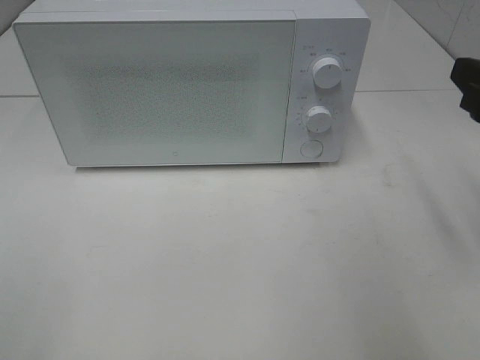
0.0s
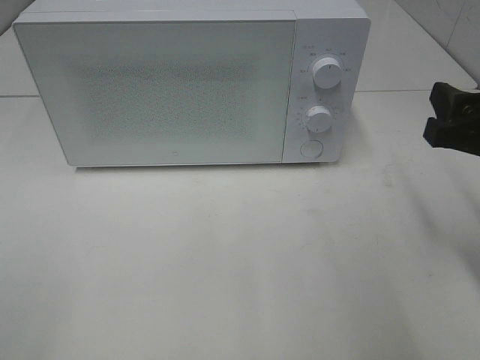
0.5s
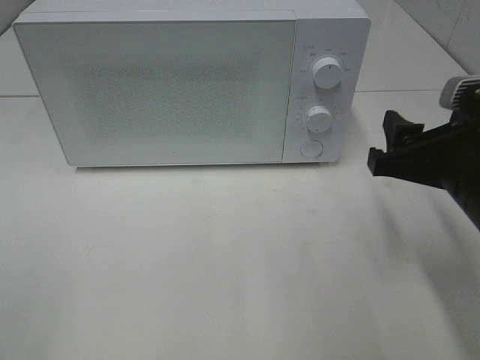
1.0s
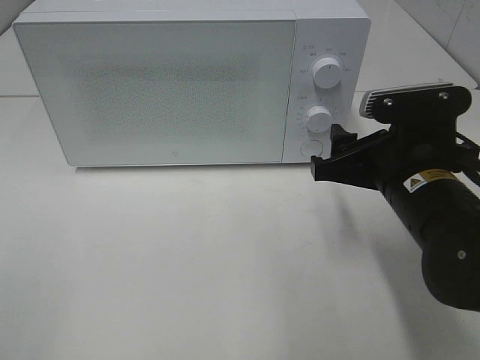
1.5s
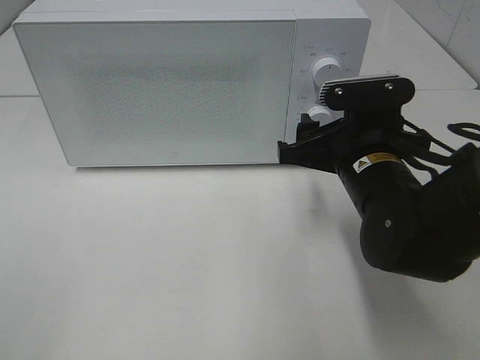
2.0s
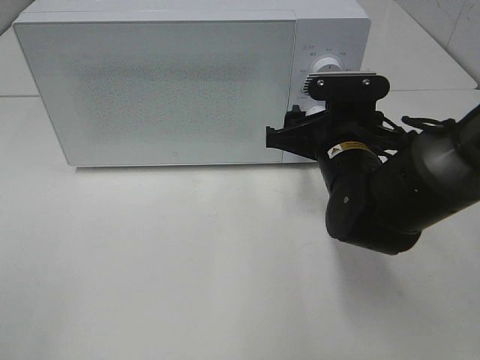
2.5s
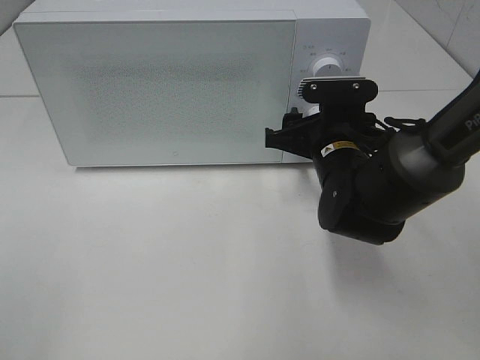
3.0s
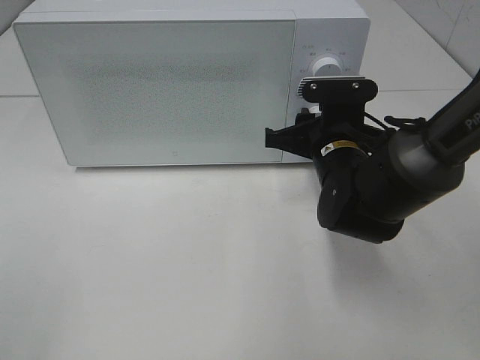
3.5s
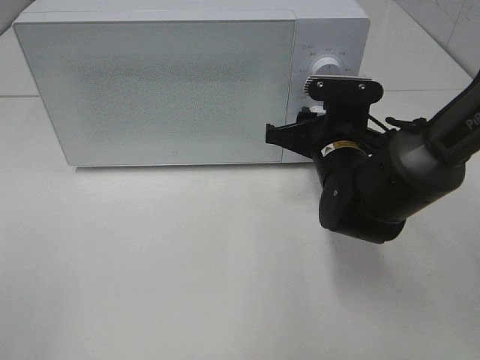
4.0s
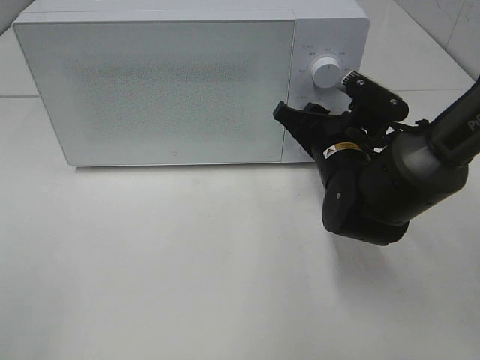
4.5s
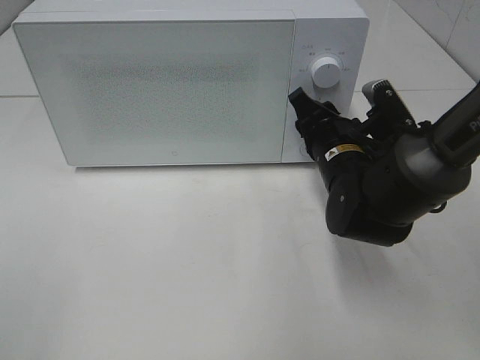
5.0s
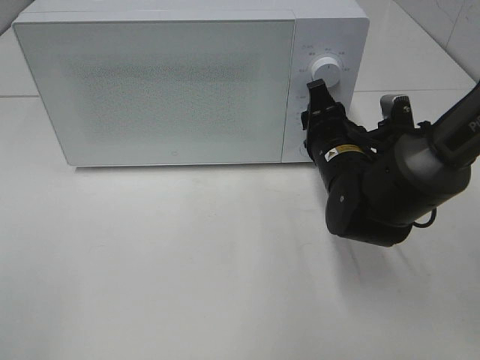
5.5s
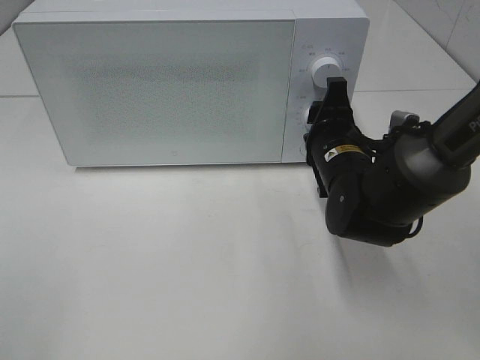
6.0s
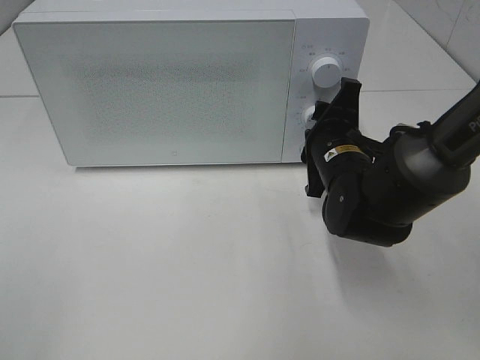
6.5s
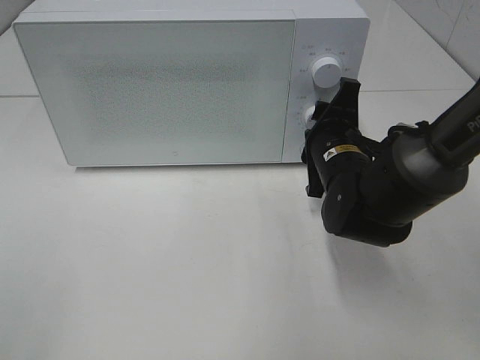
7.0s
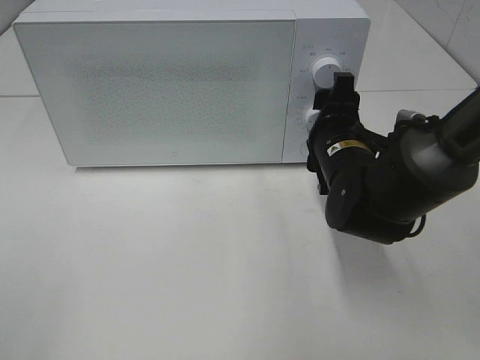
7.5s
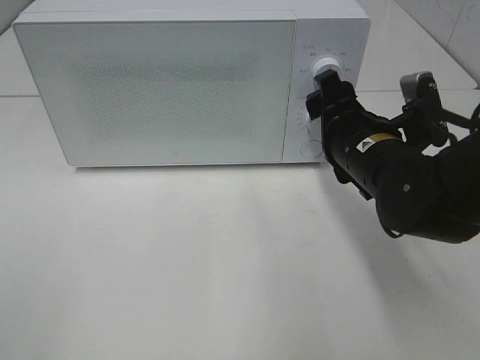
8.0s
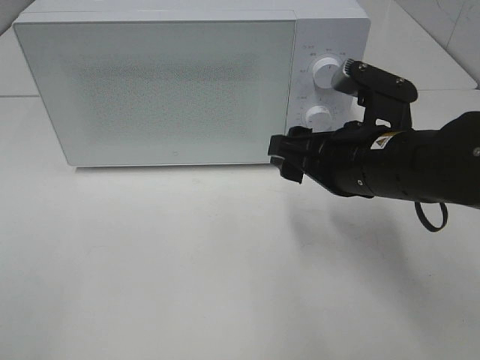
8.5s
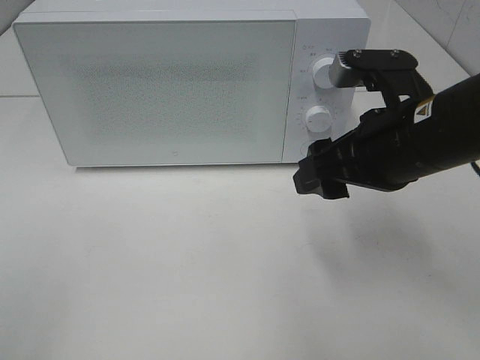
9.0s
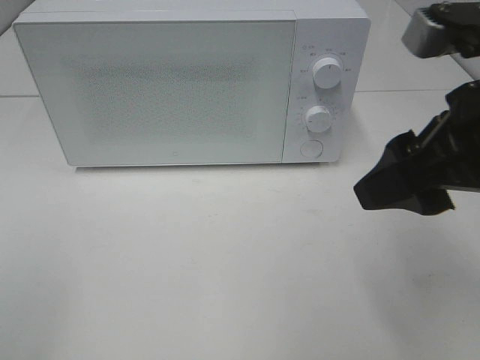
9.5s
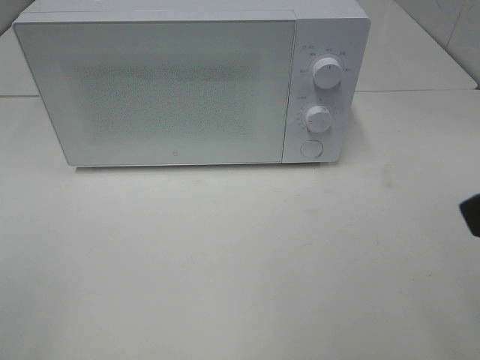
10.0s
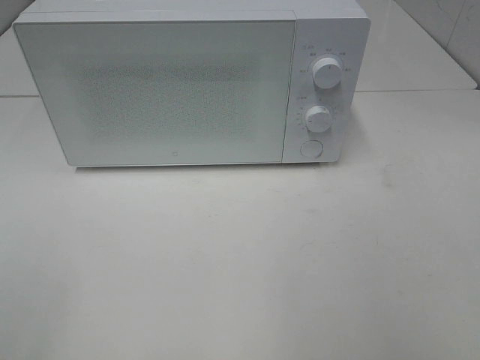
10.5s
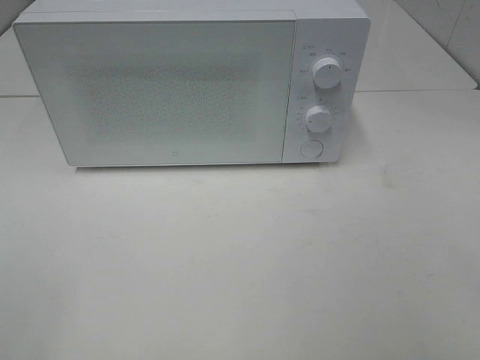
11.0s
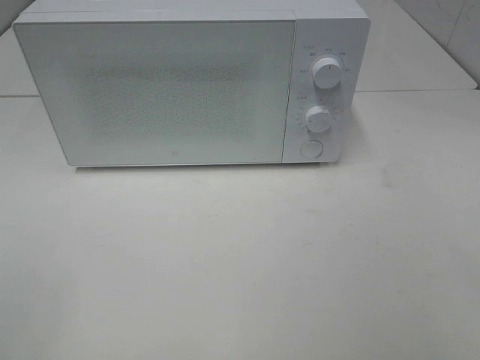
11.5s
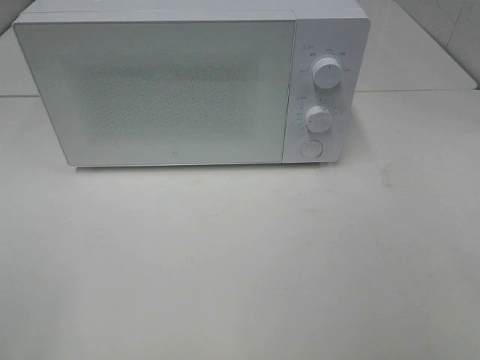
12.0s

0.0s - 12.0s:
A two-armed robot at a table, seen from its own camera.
Task of the whole recording: Heat the burger.
Step, 0.0s - 7.5s: Right hand: twist timer button.
0.0s - 2.0s: The right gripper shifts roughly 20 cm to the left, downward and forward.
2.0s - 4.0s: The right gripper moves forward, about 5 cm.
6.0s - 8.0s: The right gripper shifts by about 5 cm, and opens up.
8.0s - 10.0s: The right gripper shifts roughly 25 cm backward, upward and to the right.

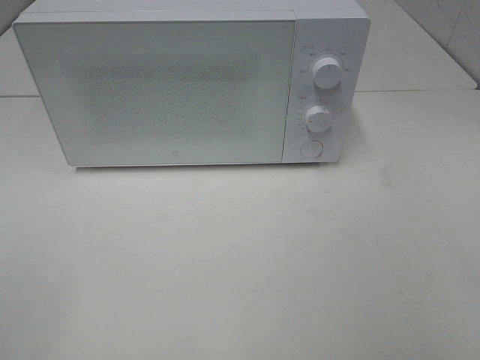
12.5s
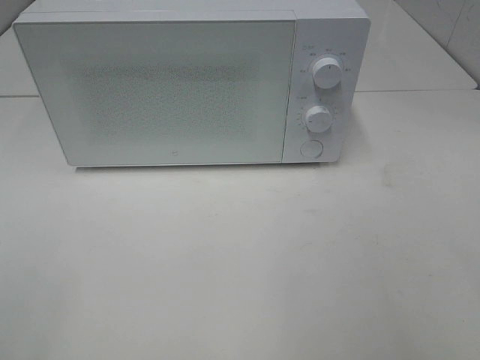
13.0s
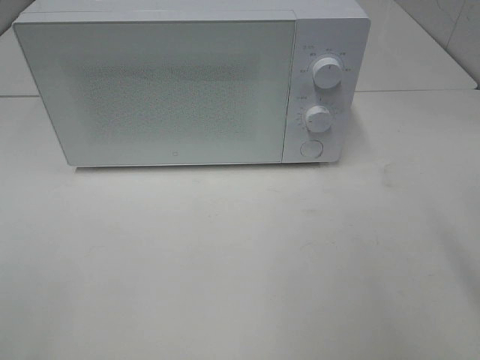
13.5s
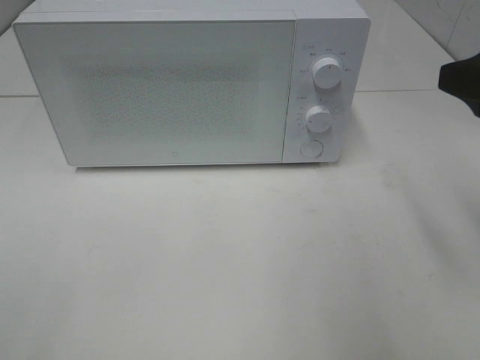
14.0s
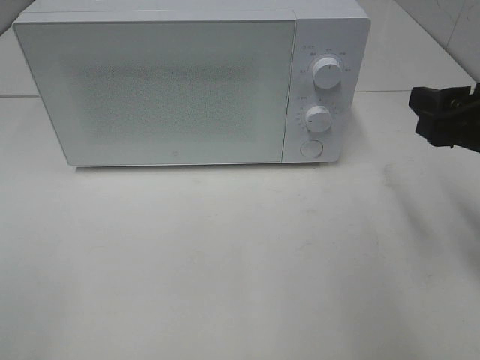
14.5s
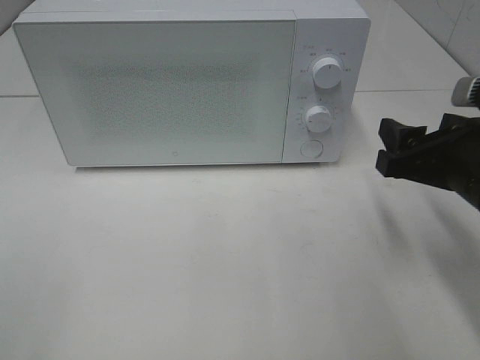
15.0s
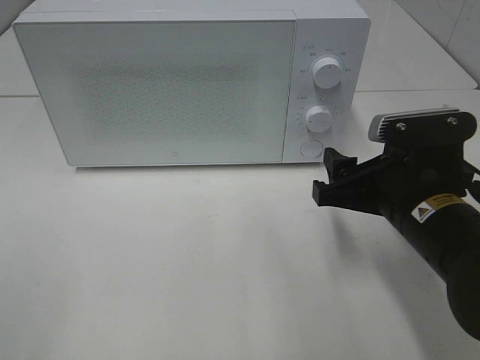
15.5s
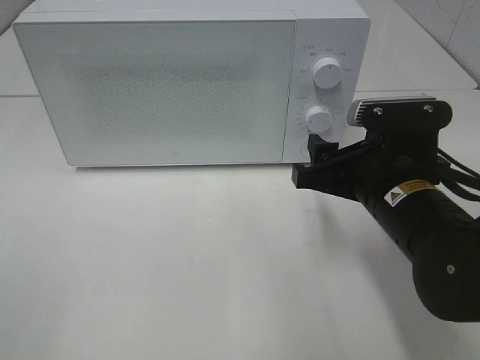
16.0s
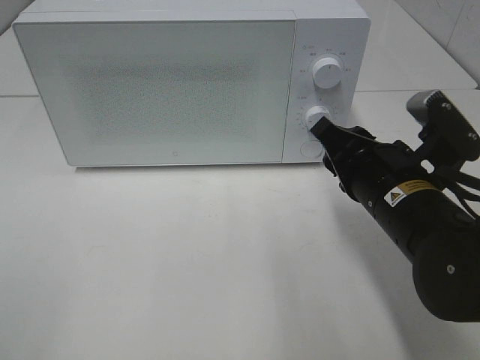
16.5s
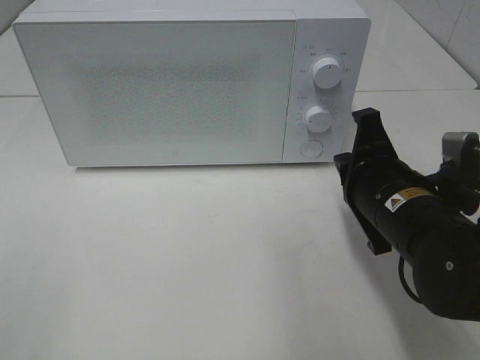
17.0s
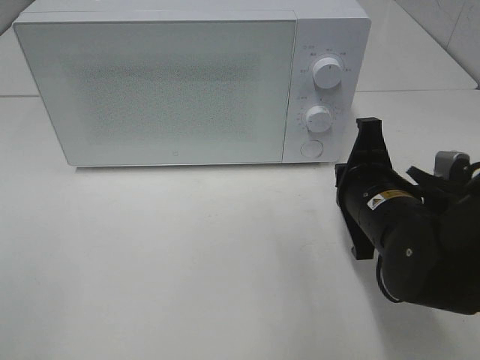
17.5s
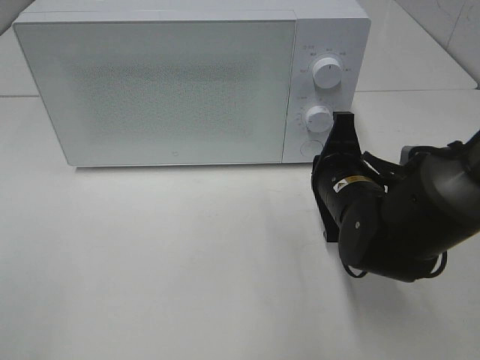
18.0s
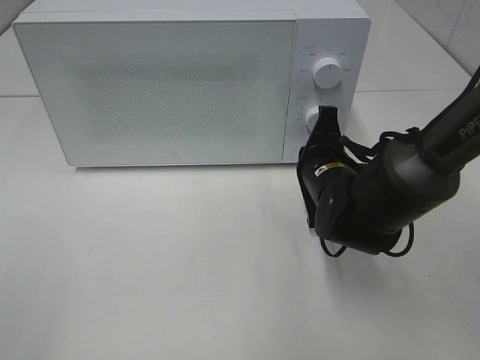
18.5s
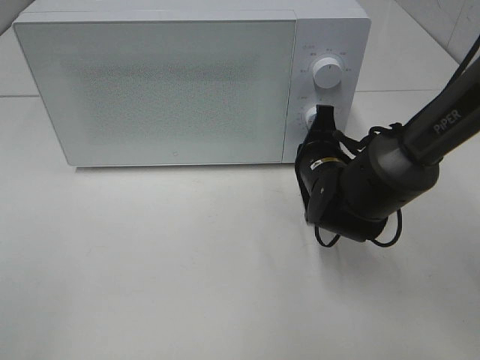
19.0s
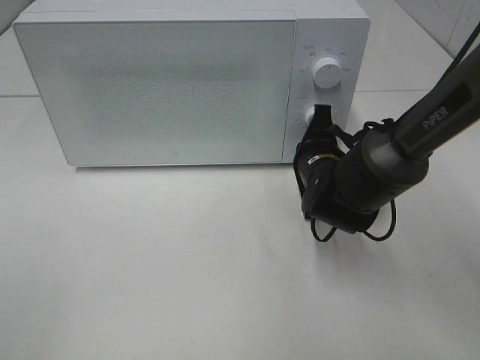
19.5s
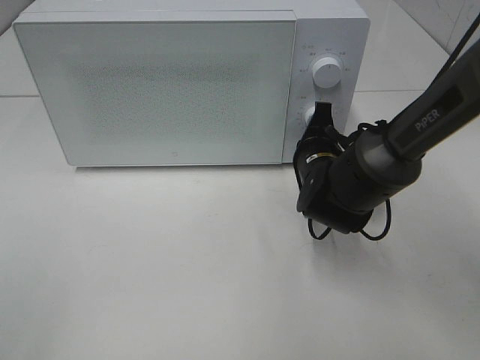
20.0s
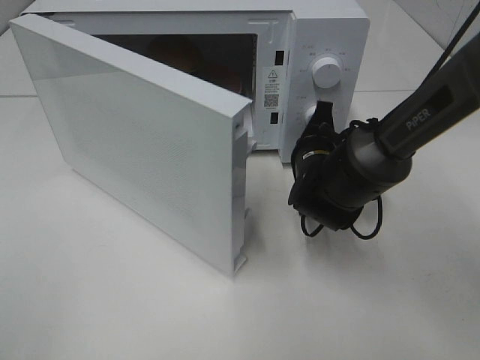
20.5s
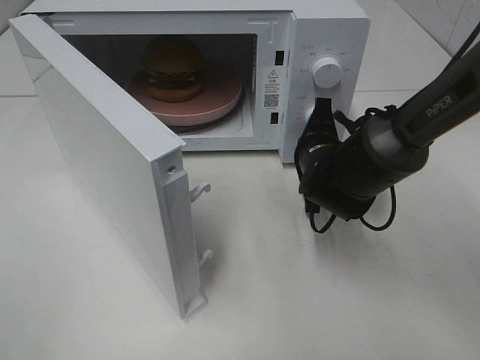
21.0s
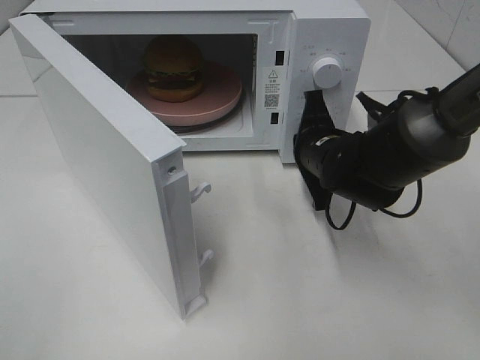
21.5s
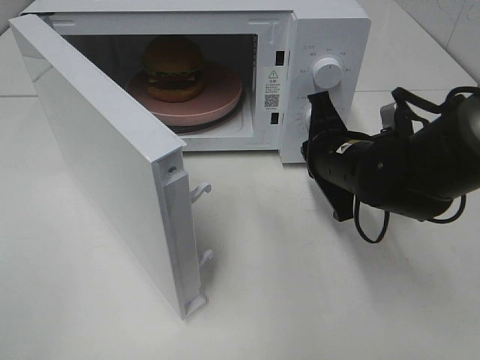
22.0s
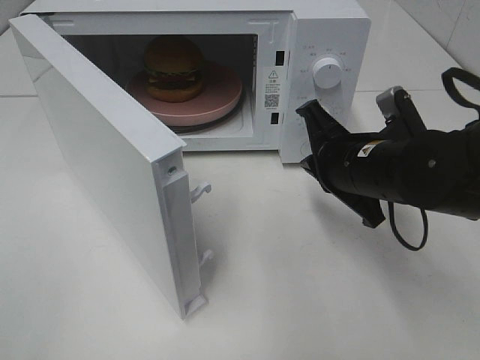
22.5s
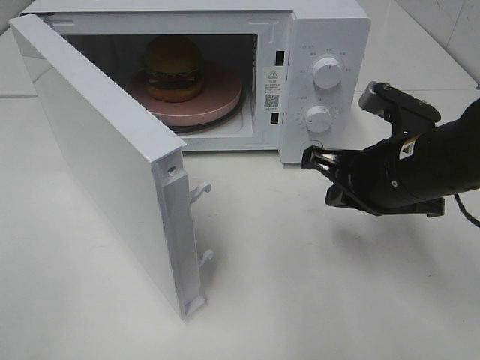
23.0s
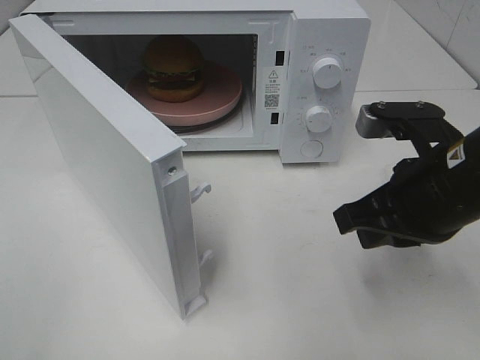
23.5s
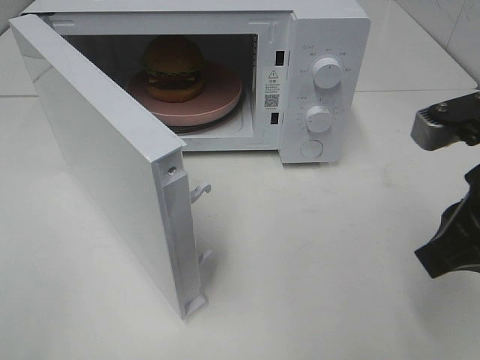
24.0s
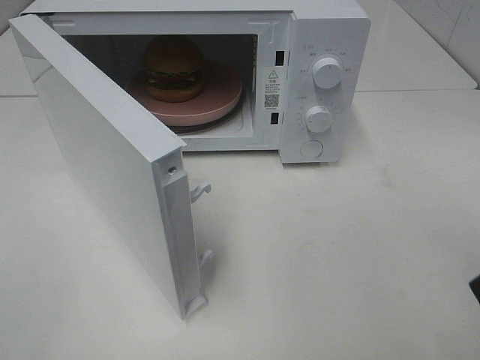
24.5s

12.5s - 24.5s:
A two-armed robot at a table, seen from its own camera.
Task of the whole recording: Heat the burger.
Step, 12.5s - 21.5s: Right hand: press the switch.
12.5s - 14.5s: The right gripper heads forward, covering about 20 cm.
14.5s - 16.5s: The right gripper goes about 15 cm to the left and downward, and closes.
16.5s - 18.5s: The right gripper is displaced forward and downward by roughly 10 cm, and closes up.
20.5s - 22.5s: The right gripper travels backward and upward by roughly 10 cm.
22.5s - 24.5s: The right gripper goes about 25 cm backward, upward and to the right, and opens its fingers.

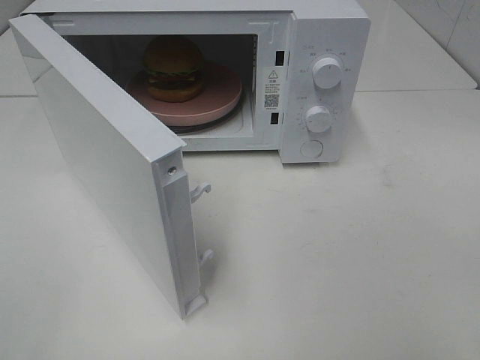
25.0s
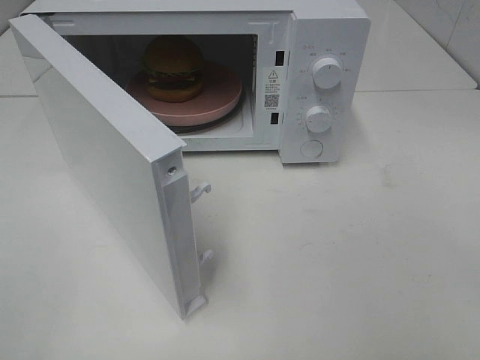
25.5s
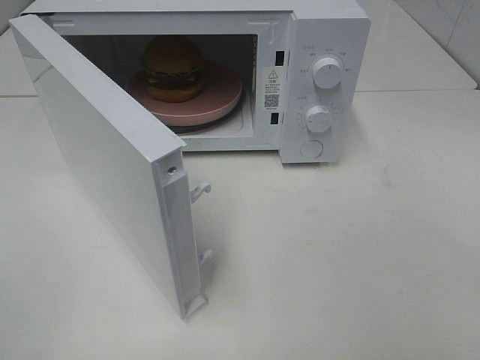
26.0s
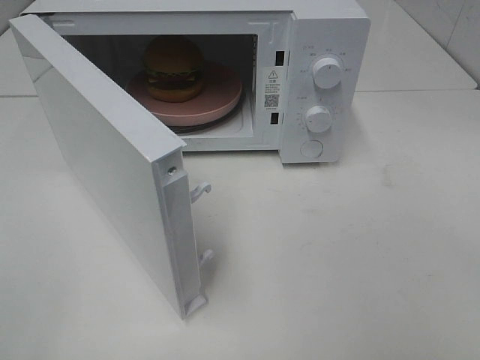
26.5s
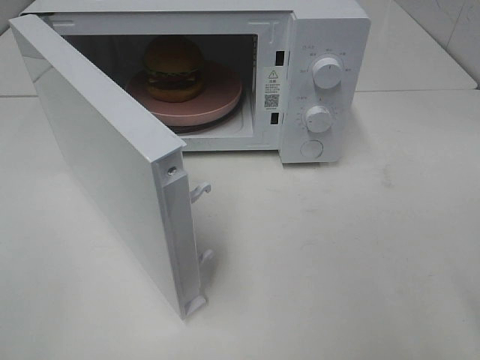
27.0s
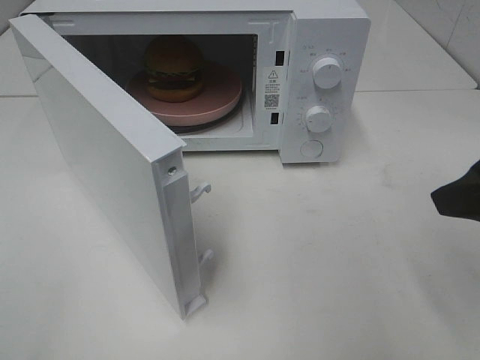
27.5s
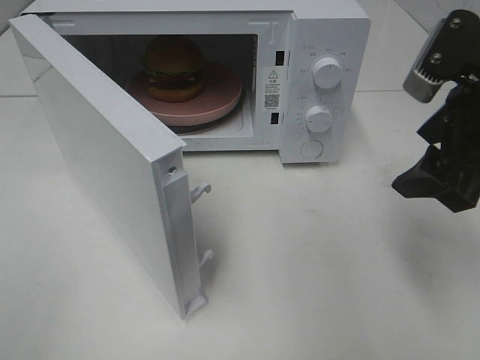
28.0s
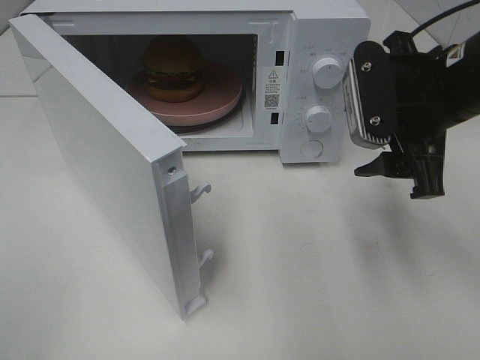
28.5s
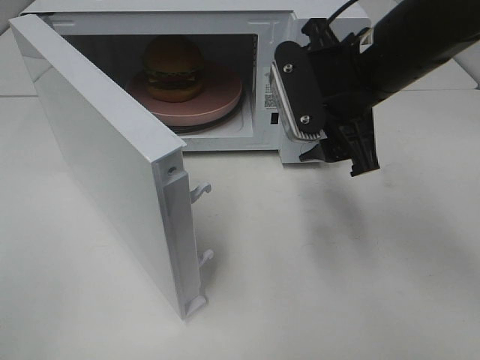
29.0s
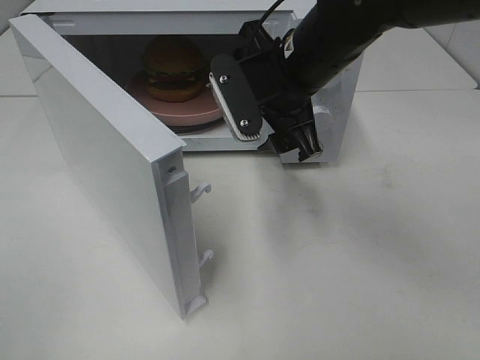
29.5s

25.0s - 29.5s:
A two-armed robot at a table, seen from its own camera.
Task of the whole recording: Heat the burger.
27.0s - 29.5s: The right gripper heads forward and to the left, covering roughly 30 cm.
